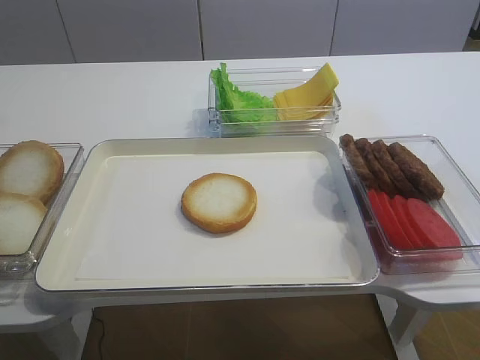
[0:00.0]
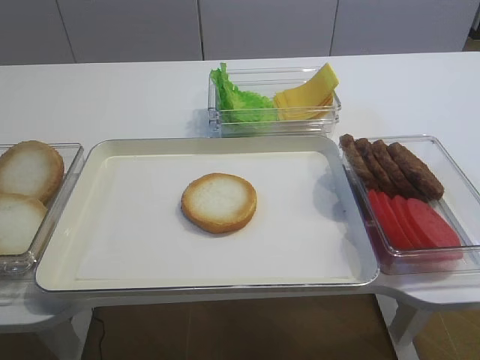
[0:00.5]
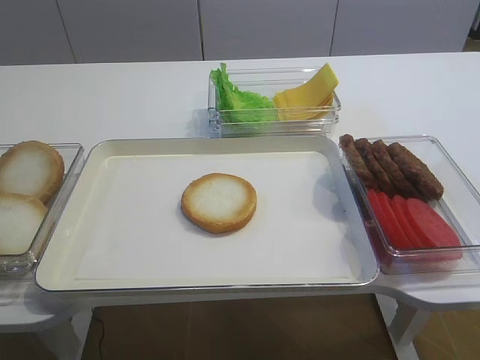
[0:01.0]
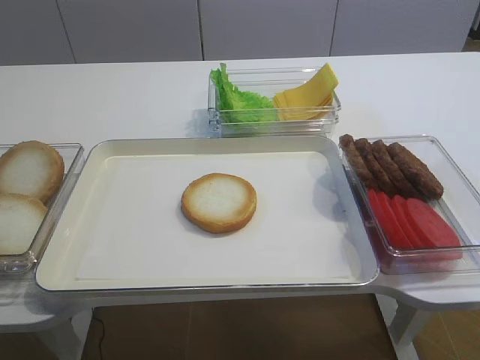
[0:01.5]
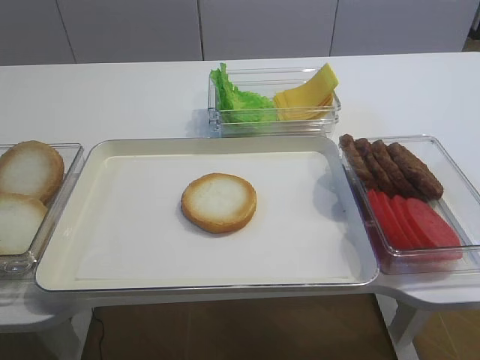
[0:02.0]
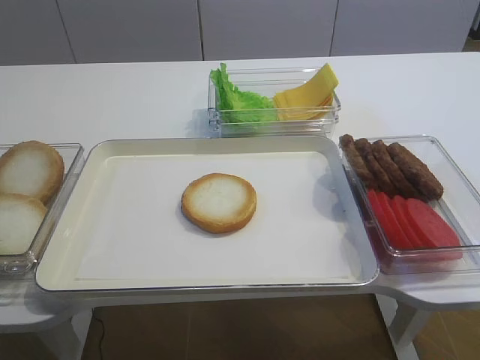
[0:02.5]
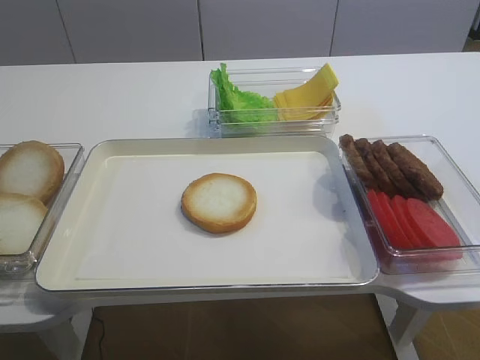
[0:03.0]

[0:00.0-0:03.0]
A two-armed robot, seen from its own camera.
0:01.5 to 0:03.0: Neither gripper changes place.

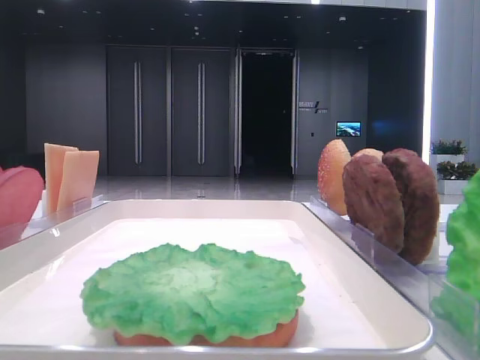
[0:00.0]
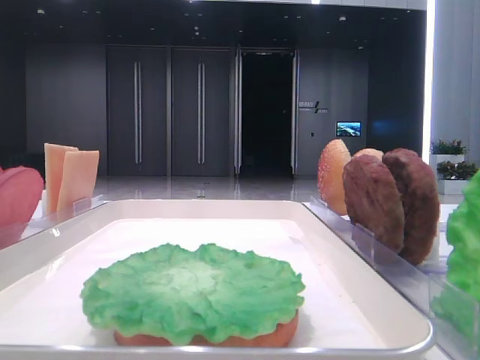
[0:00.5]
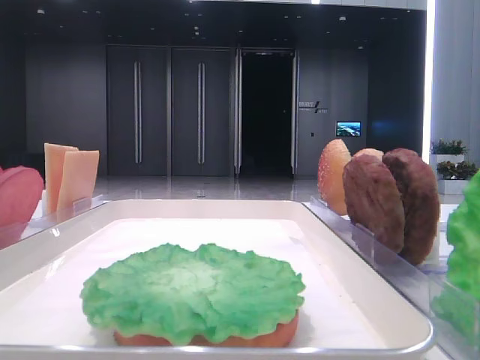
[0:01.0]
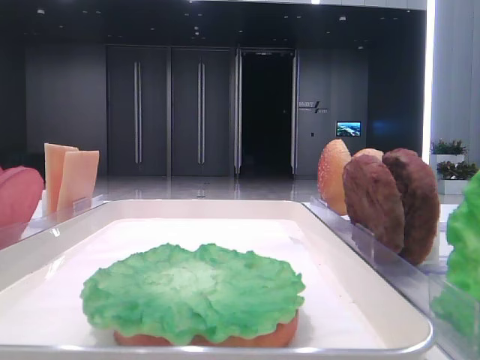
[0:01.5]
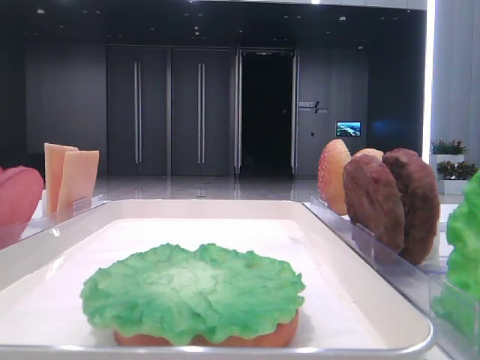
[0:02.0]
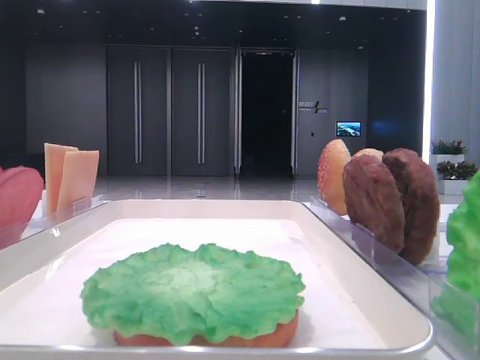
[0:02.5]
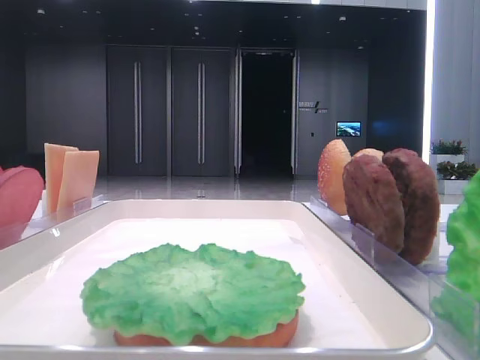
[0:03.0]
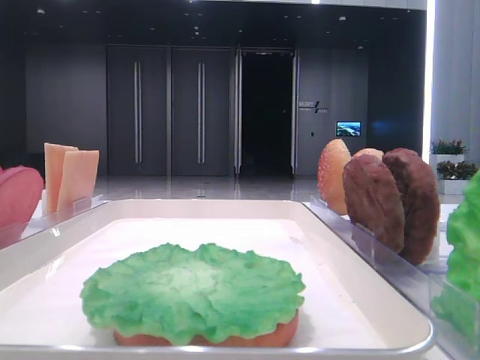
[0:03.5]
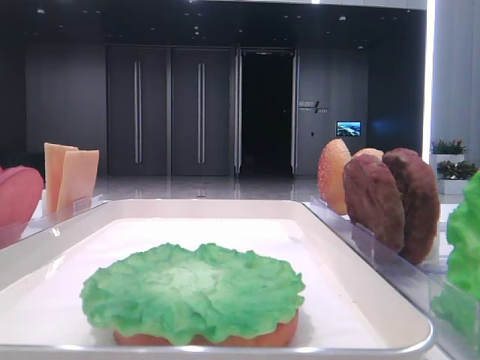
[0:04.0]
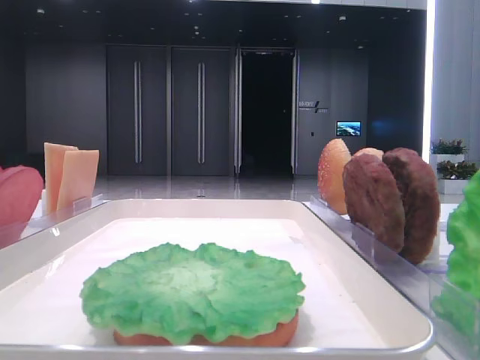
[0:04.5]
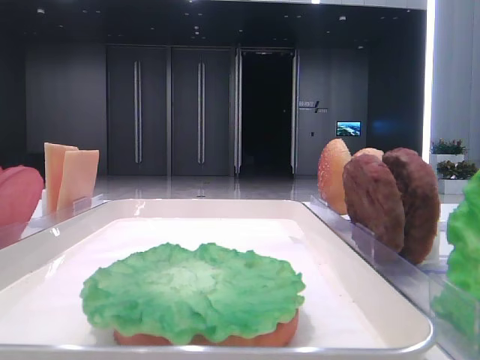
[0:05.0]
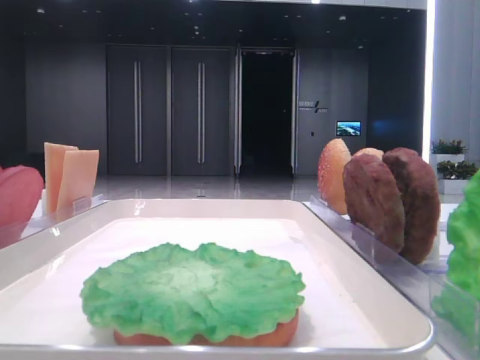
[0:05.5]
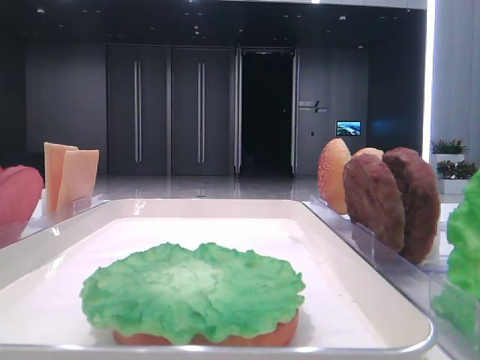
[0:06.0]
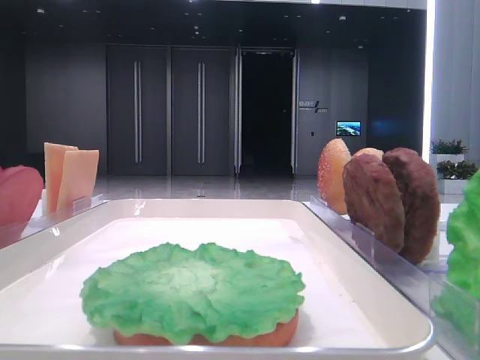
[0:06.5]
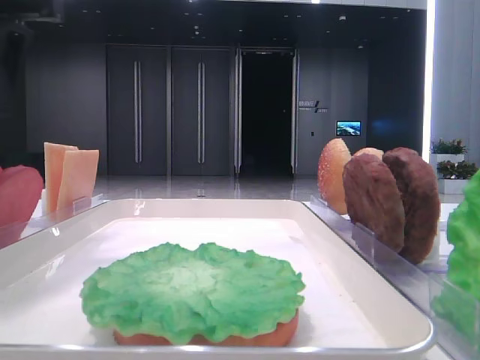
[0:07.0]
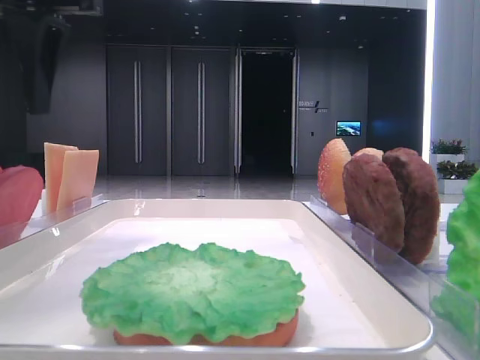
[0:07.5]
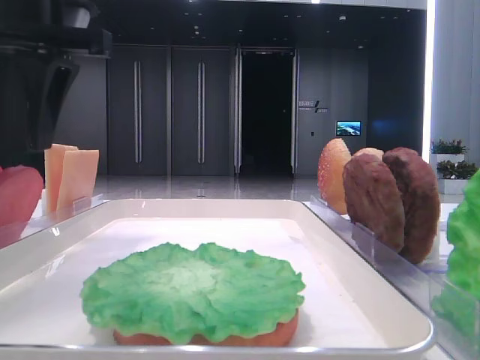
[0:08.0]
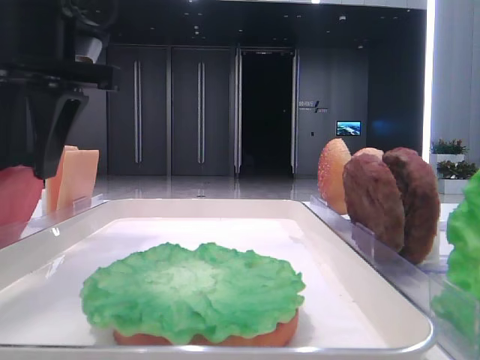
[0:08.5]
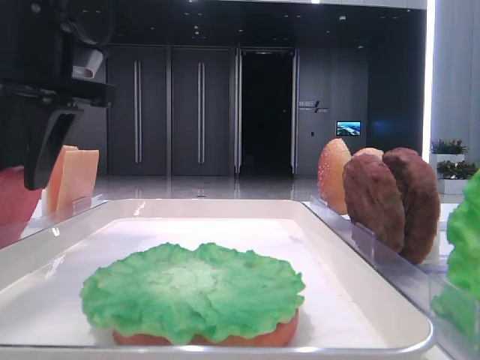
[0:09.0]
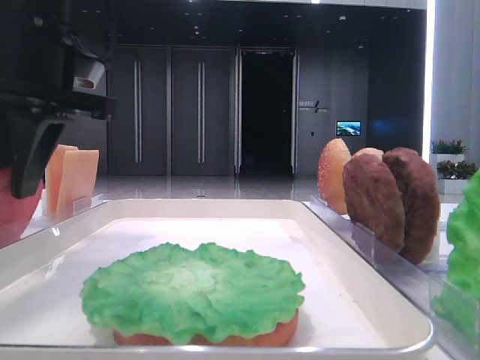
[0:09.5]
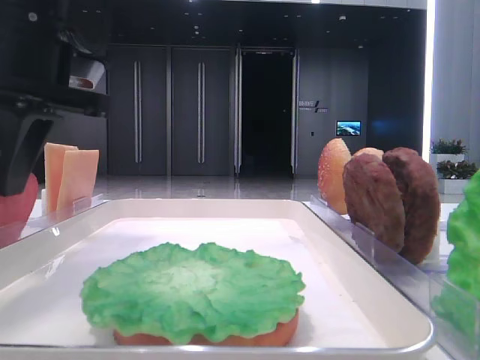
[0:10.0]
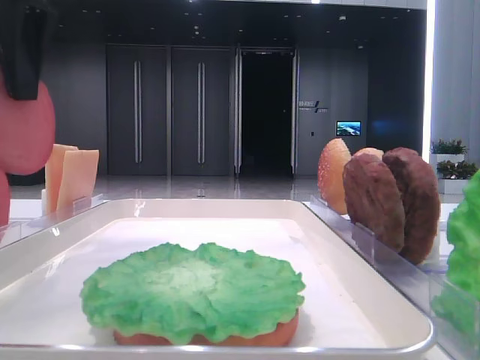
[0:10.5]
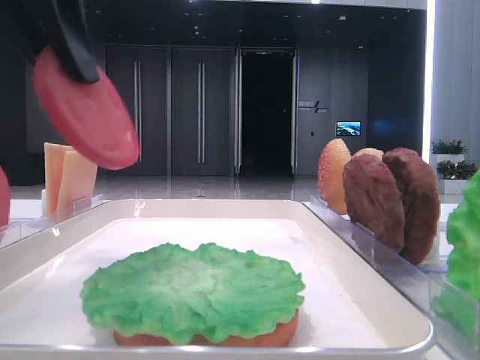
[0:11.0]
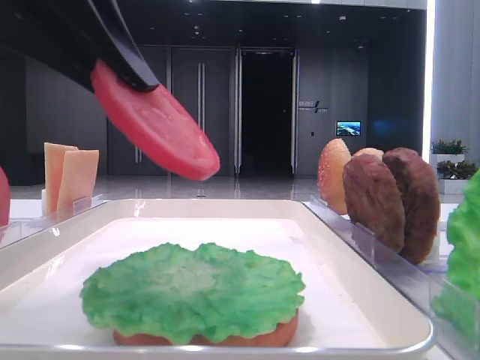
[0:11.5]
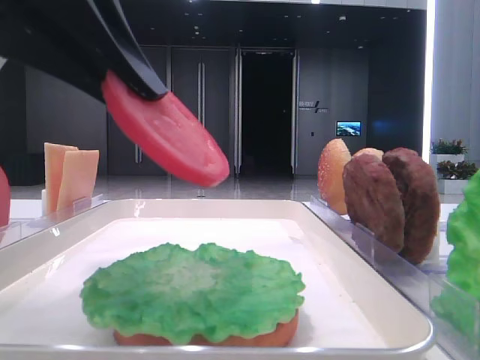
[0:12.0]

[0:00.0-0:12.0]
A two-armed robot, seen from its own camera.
Step, 0:00.0 to 0:09.5: Pick up the tomato slice with the left hand.
0:06.0 to 0:08.0: The left gripper moves to the right, approximately 15 cm.
0:08.0 to 0:10.0: The left gripper closes.
0:10.0 to 0:12.0: The left gripper is displaced backward by about 10 cm.

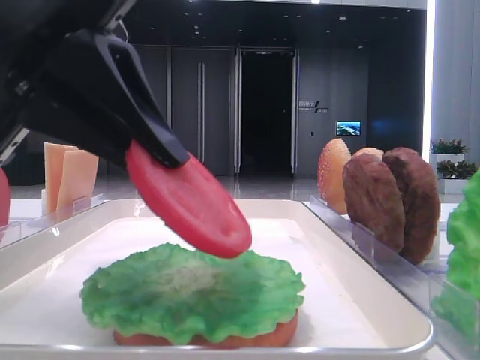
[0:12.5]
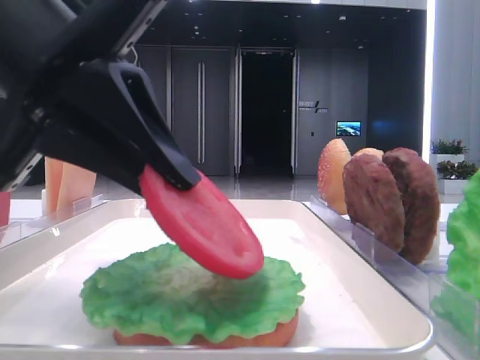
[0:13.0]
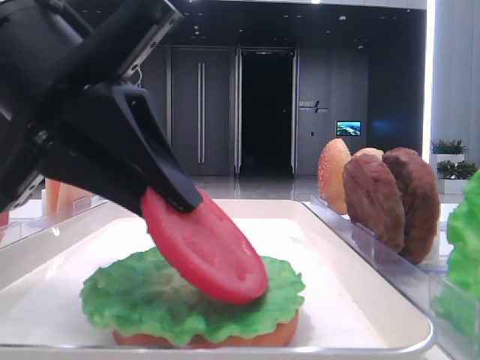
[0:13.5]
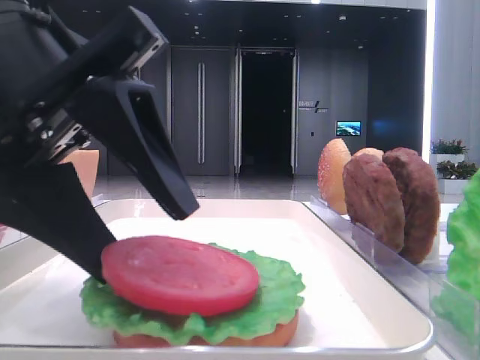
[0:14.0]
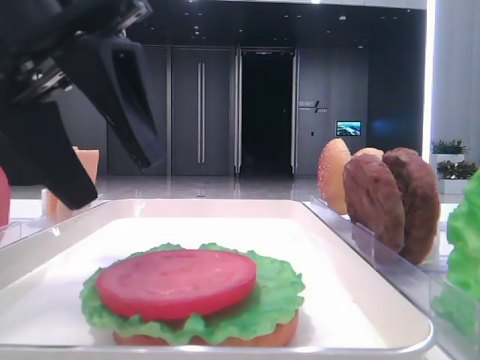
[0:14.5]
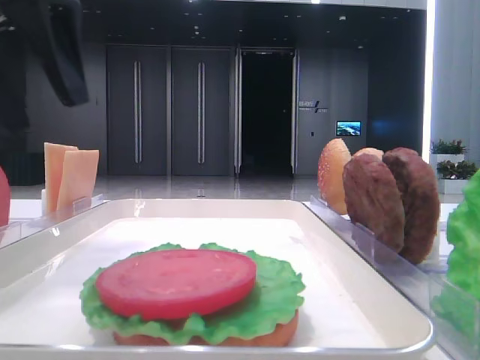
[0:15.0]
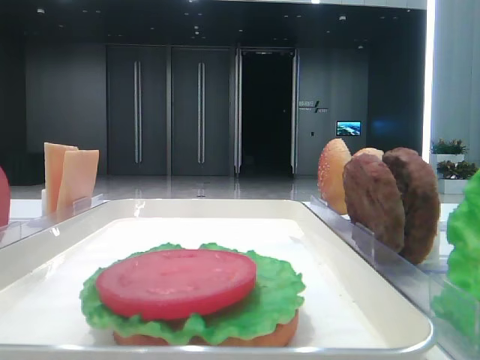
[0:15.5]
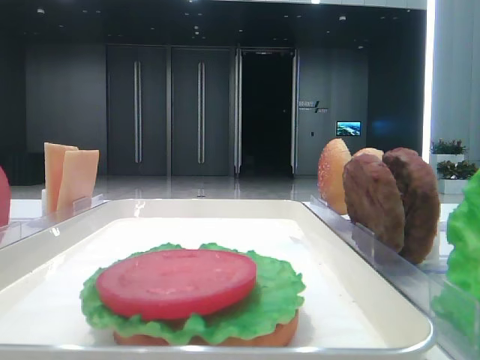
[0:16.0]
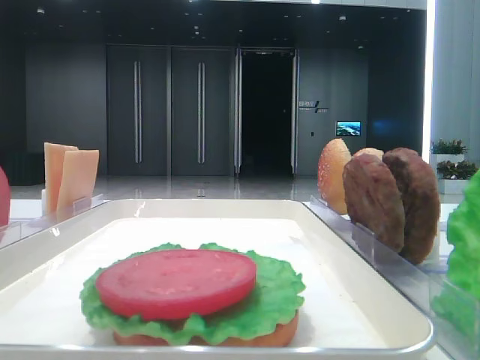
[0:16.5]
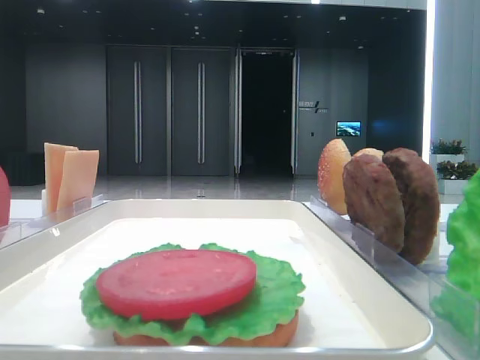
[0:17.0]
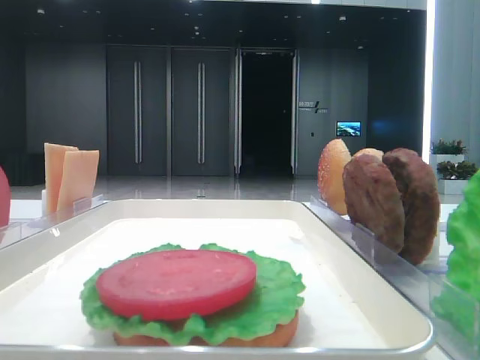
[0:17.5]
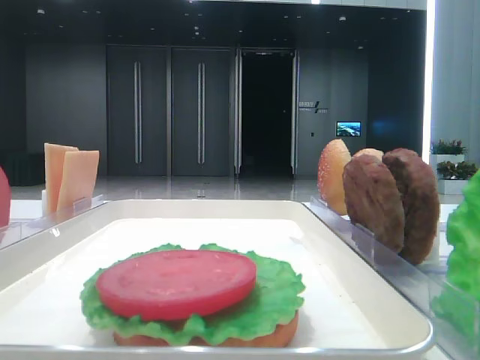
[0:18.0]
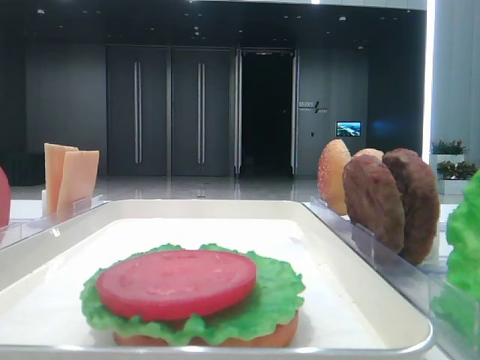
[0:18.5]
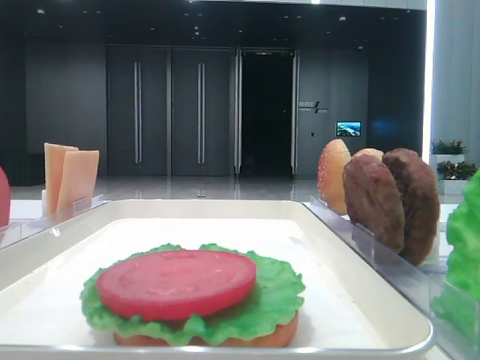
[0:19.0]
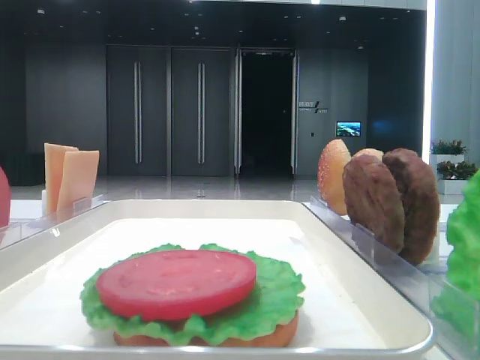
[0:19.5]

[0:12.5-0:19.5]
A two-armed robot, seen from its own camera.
0:12.5 to 0:14.5: The left gripper opens up.
0:14.5 to 0:16.0: The left gripper goes approximately 20 cm to the left and upward.

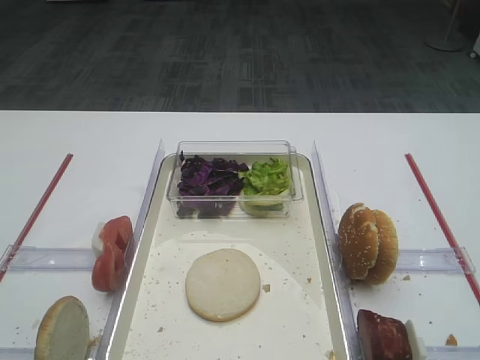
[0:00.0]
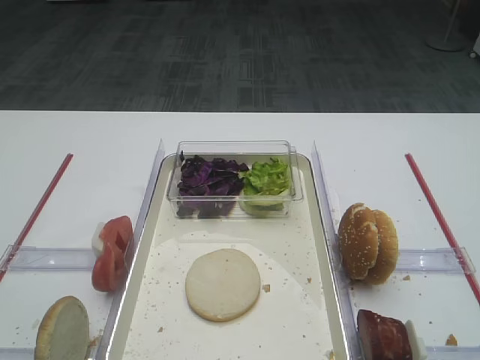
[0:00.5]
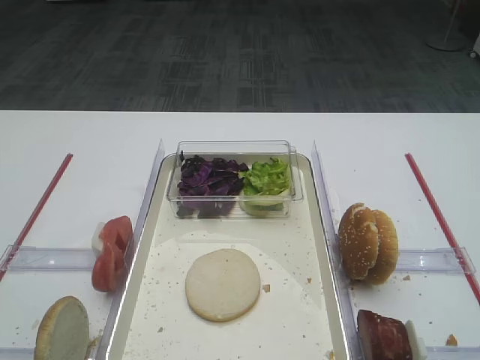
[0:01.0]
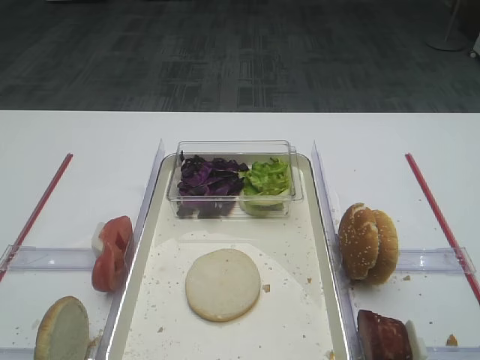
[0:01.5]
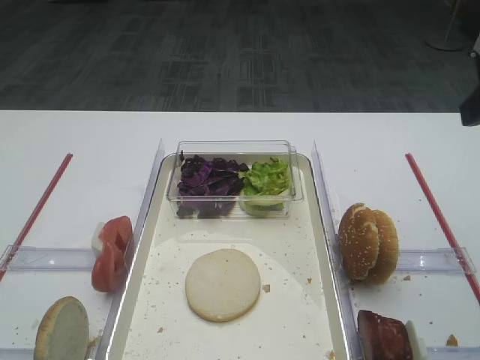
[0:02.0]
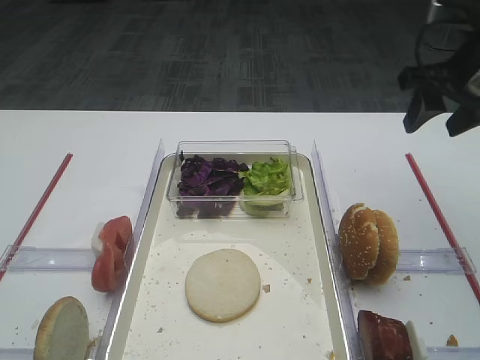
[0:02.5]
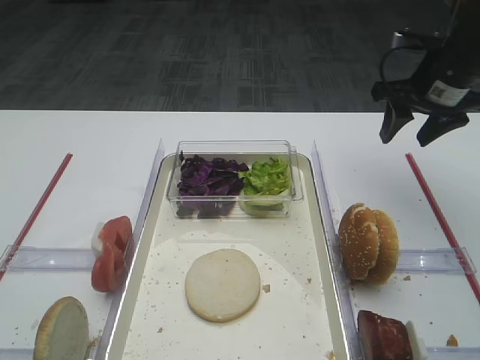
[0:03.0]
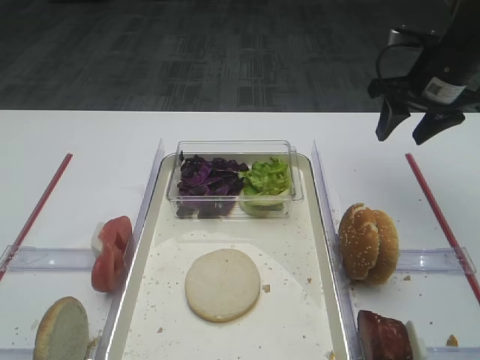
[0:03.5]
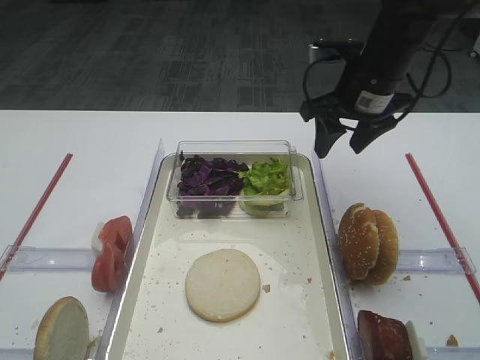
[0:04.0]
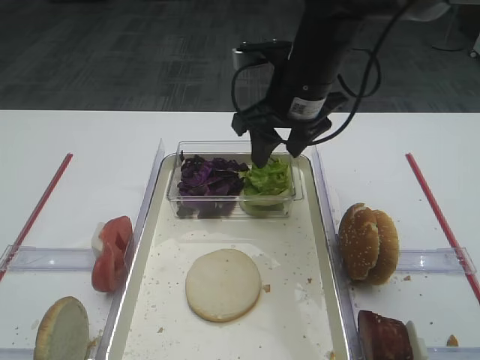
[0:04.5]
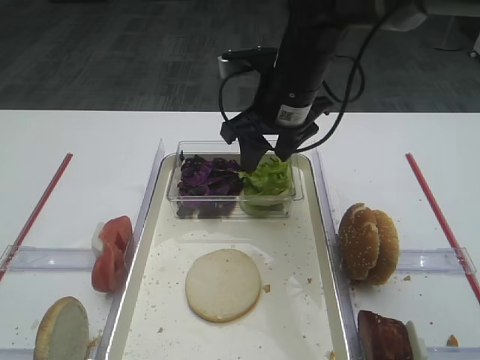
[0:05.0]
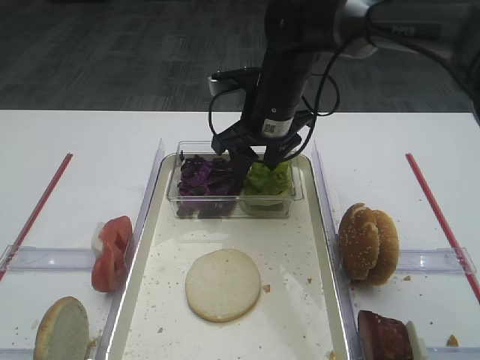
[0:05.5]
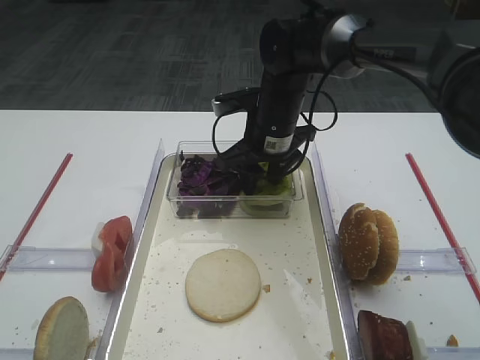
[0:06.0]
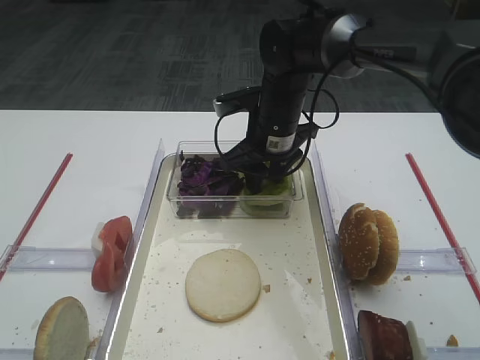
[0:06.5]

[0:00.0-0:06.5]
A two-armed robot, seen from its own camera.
0:02.0 to 0:04.5: The right gripper heads to the left, forward and downward, covering about 25 cm.
0:04.5 to 0:06.5: The right gripper travels downward by approximately 10 cm.
